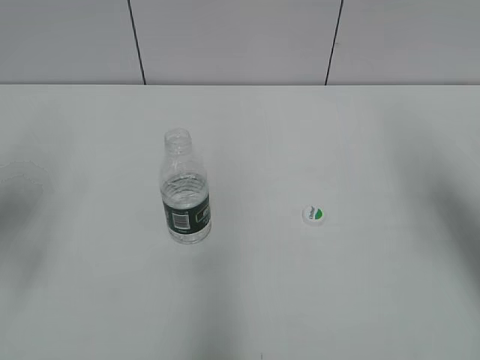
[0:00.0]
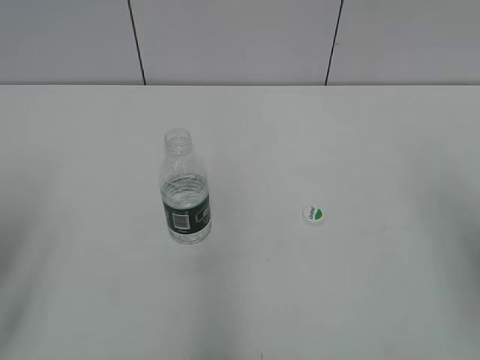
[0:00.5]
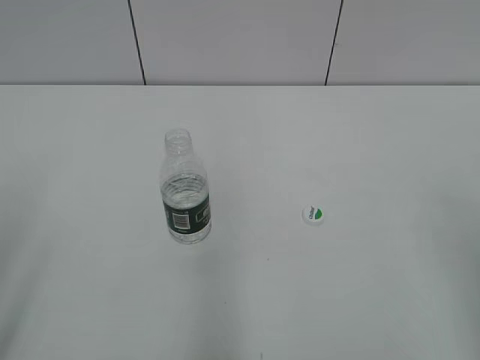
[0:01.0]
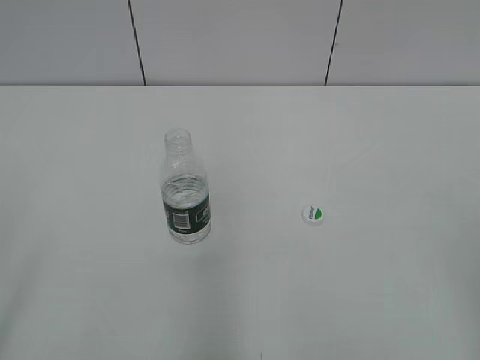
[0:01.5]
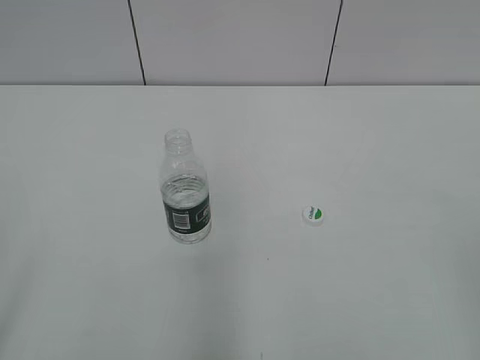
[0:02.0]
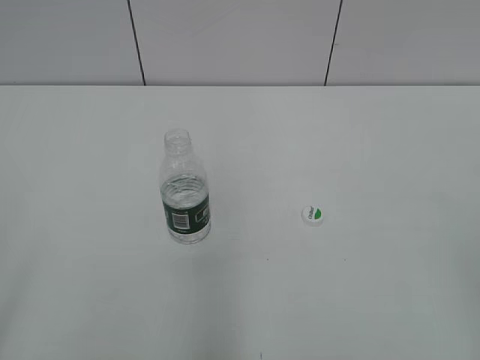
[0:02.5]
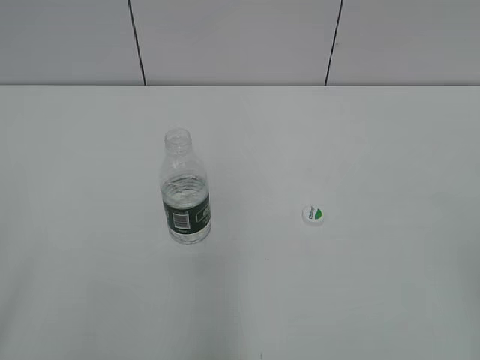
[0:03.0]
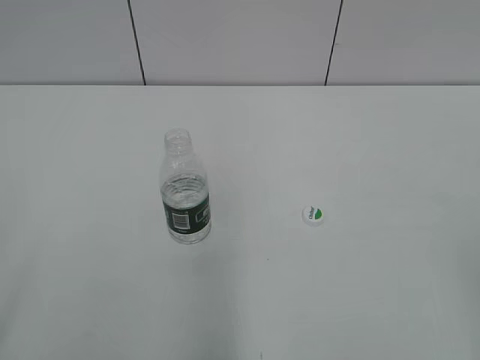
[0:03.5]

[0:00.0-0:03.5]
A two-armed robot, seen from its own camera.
0:00.0 to 0:02.0: The grippers both shift backward by about 25 cm.
